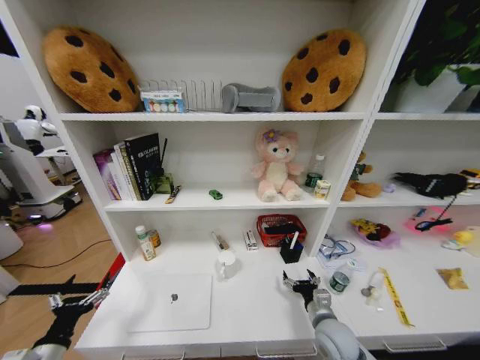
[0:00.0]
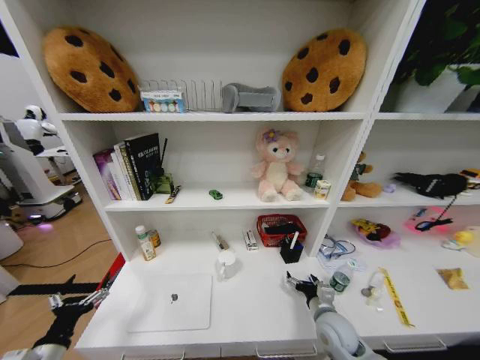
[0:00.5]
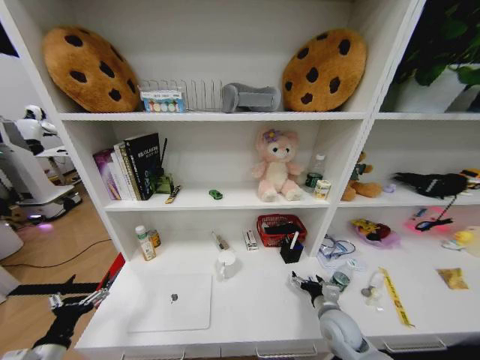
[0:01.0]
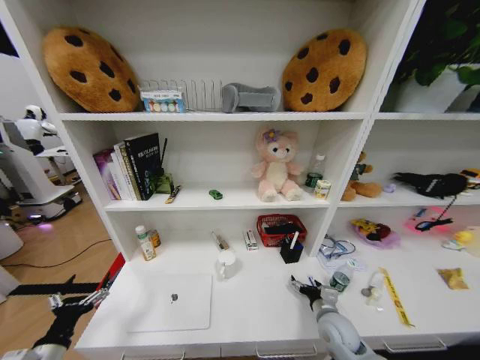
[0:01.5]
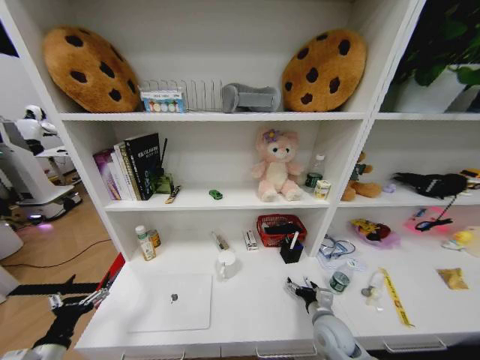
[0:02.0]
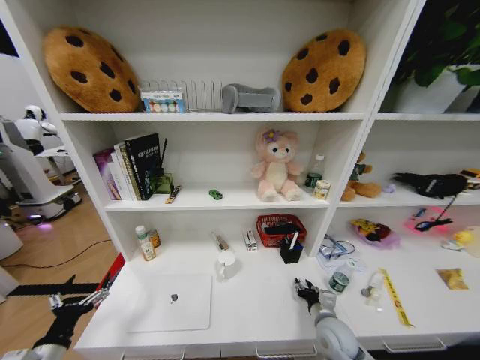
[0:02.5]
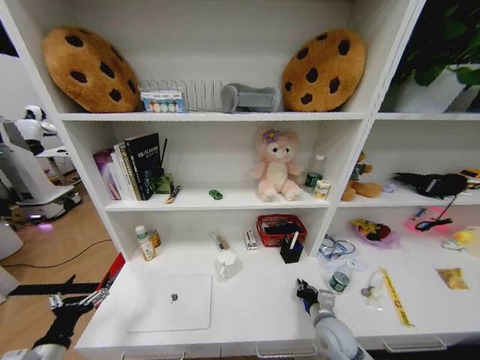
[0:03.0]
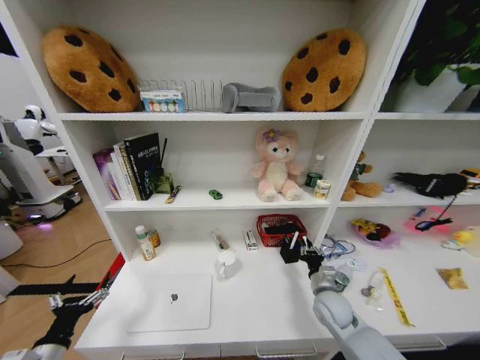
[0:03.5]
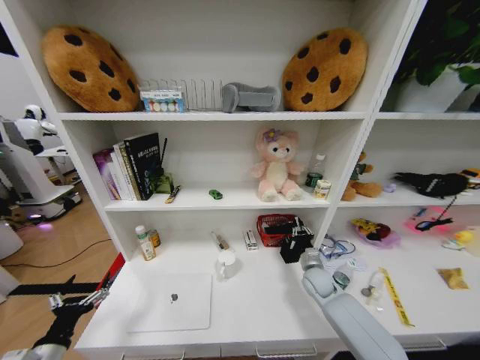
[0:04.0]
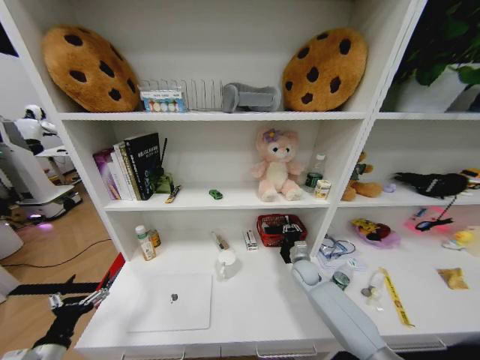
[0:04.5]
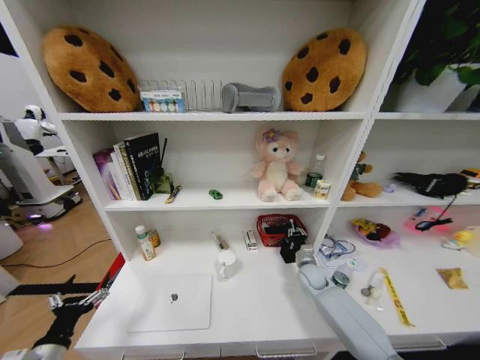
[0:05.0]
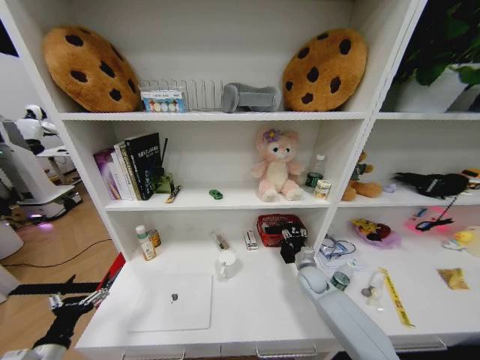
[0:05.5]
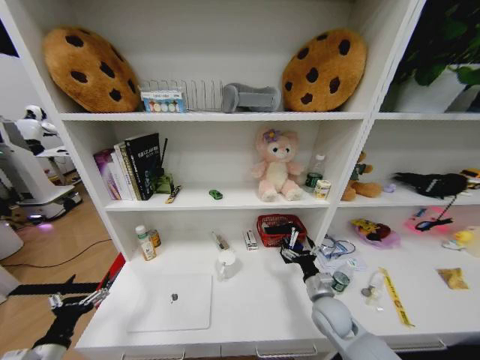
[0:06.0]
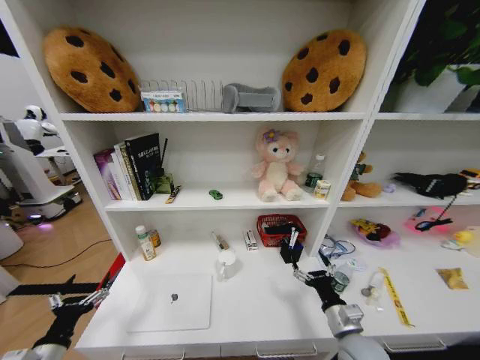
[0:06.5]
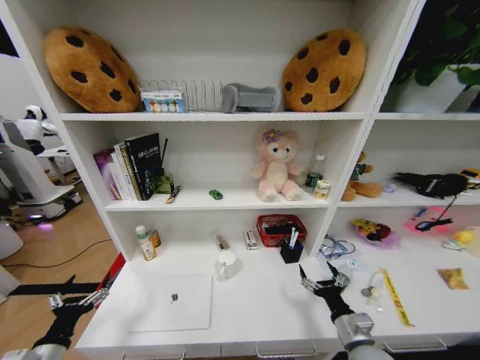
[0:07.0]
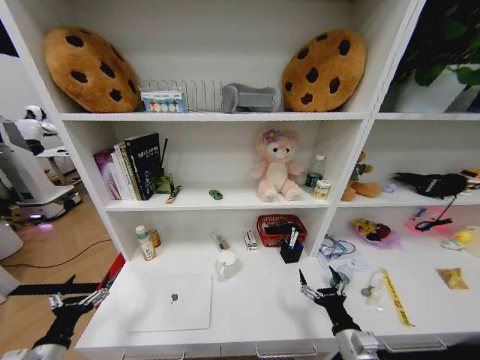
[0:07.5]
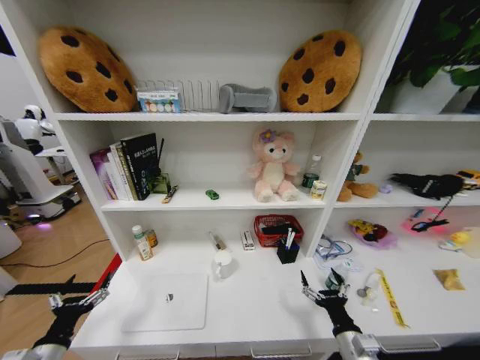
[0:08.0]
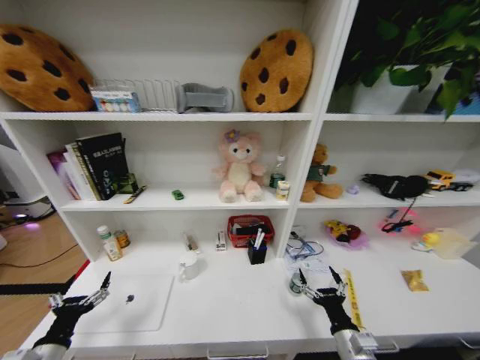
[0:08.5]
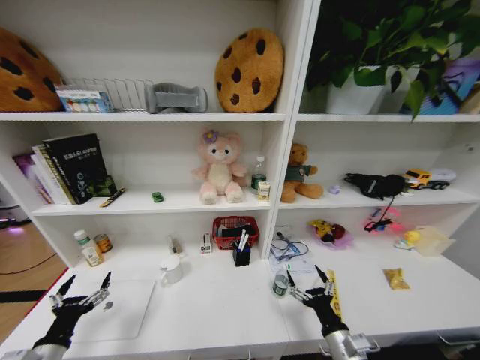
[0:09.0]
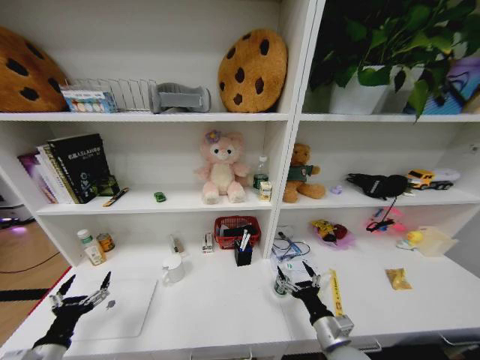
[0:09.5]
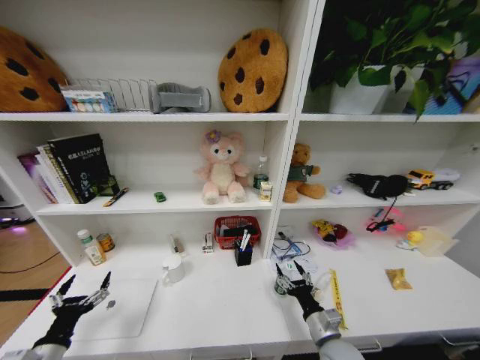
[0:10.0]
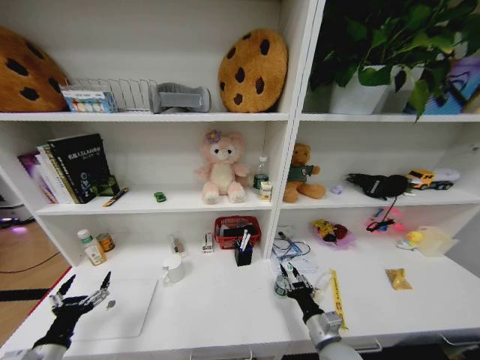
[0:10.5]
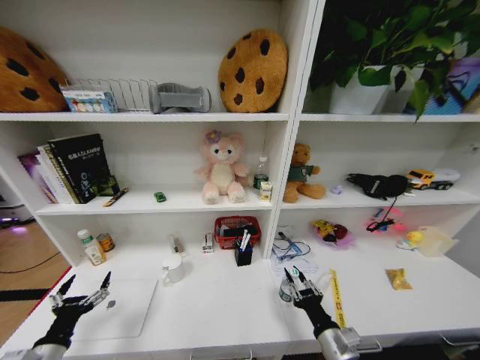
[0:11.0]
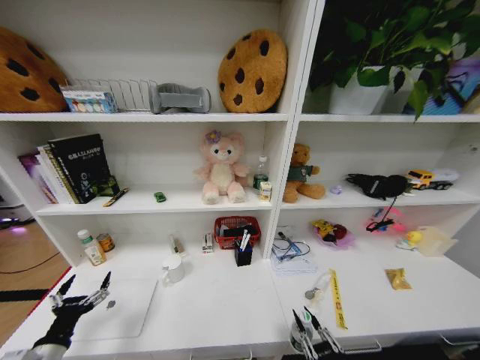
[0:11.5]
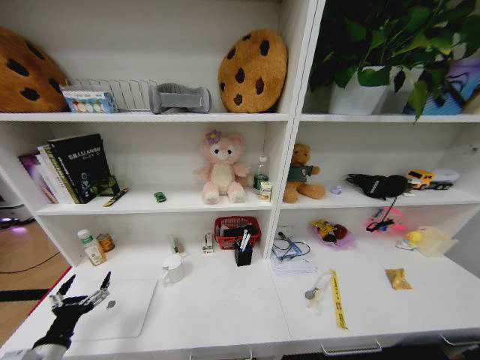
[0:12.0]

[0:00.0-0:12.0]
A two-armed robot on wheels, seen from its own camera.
Task of the whole recording: Organize the objects on the table.
0:00.0 to 0:02.0: There are only small adjustments of the grippers.
0:02.0 to 0:04.0: The right gripper heads forward, covering some 15 cm, and closes.
0:04.0 to 0:06.0: The right gripper travels backward by some 10 cm, and opens up.
0:06.0 to 0:08.0: The right gripper travels backward by roughly 15 cm.
0:08.0 to 0:10.0: The right gripper ends up roughly 5 cm from where it was.
0:10.0 to 0:12.0: The right gripper shifts roughly 25 cm backward, and closes up.

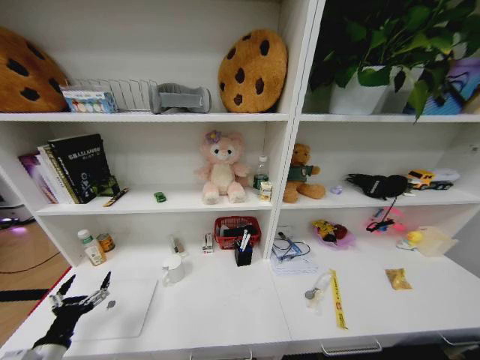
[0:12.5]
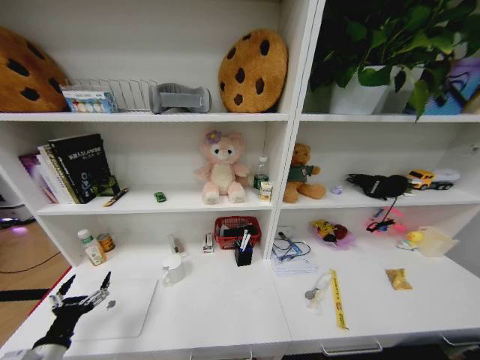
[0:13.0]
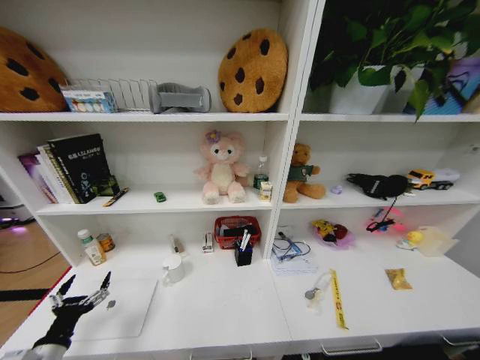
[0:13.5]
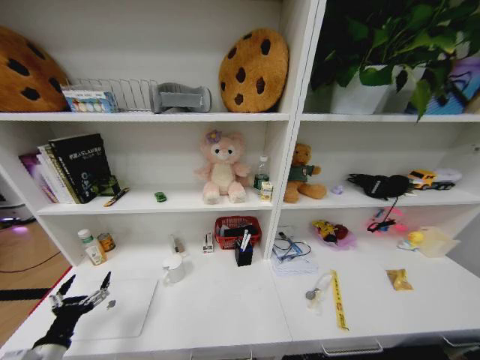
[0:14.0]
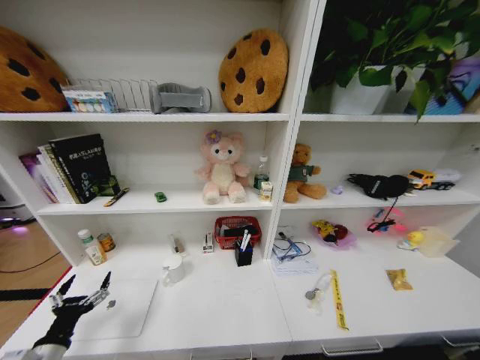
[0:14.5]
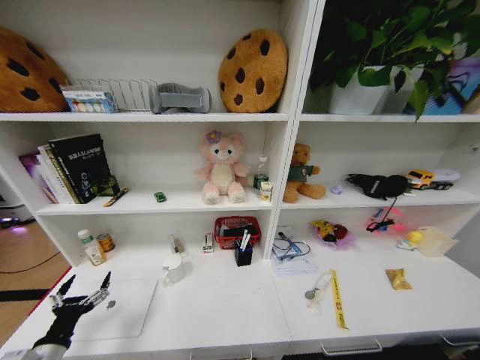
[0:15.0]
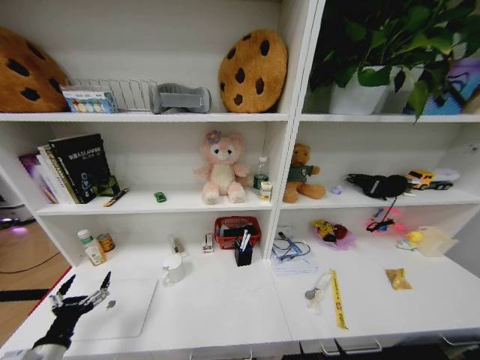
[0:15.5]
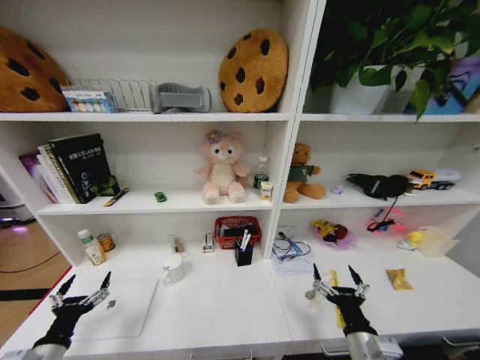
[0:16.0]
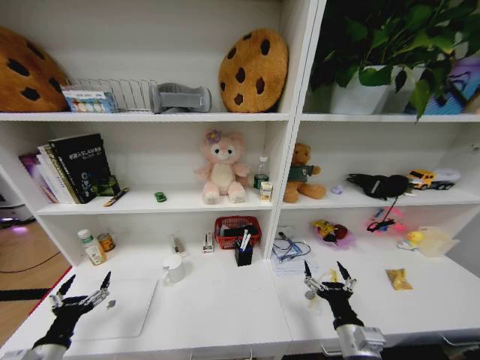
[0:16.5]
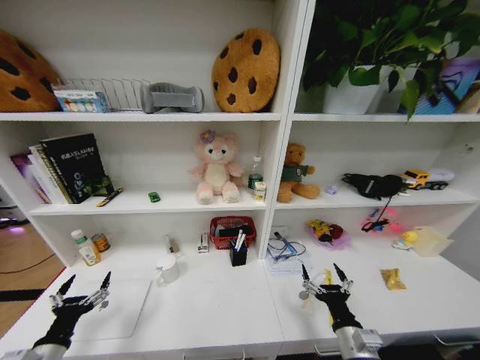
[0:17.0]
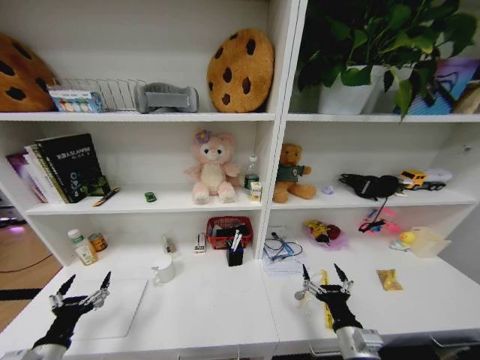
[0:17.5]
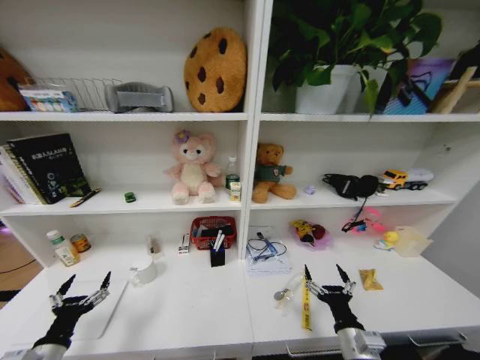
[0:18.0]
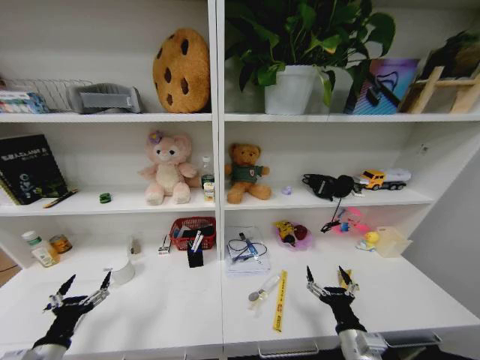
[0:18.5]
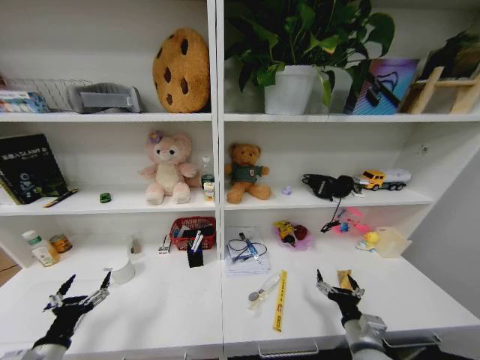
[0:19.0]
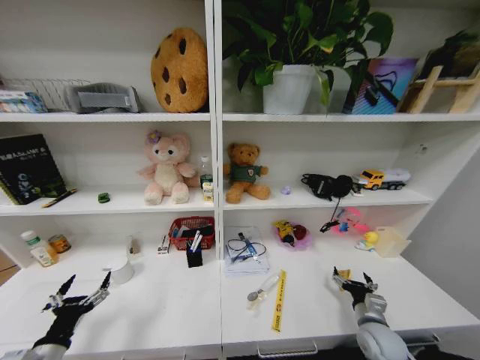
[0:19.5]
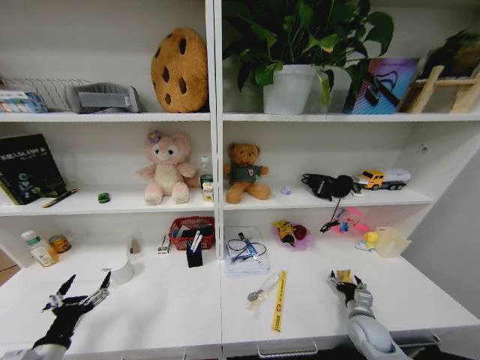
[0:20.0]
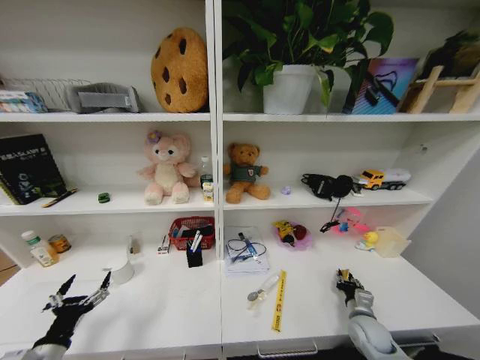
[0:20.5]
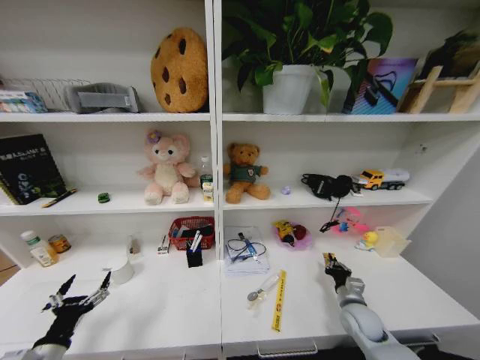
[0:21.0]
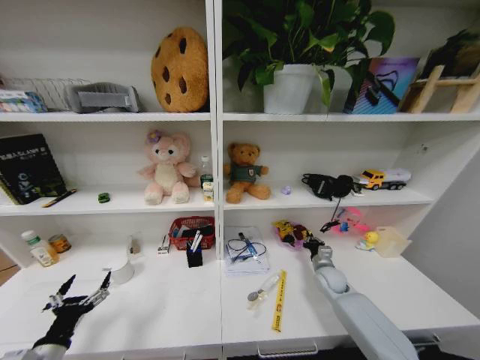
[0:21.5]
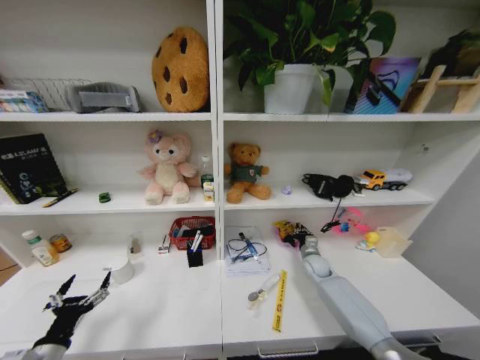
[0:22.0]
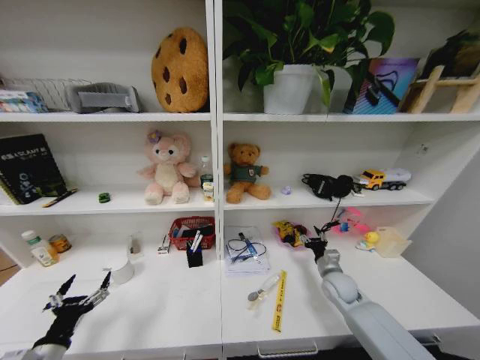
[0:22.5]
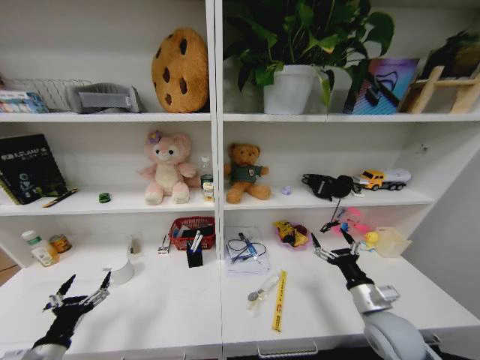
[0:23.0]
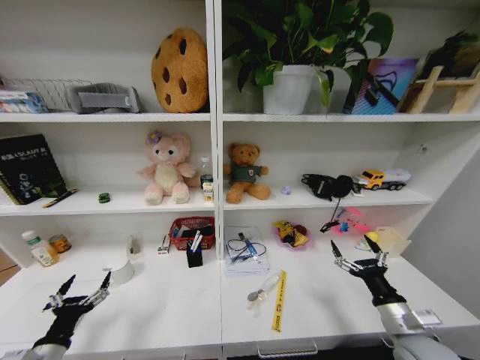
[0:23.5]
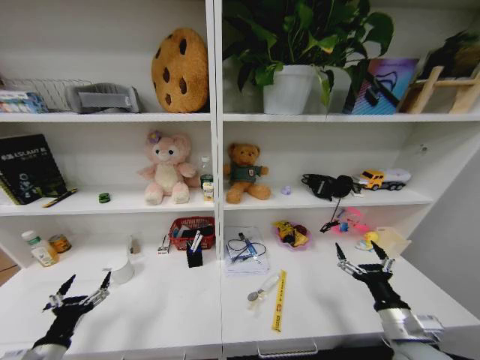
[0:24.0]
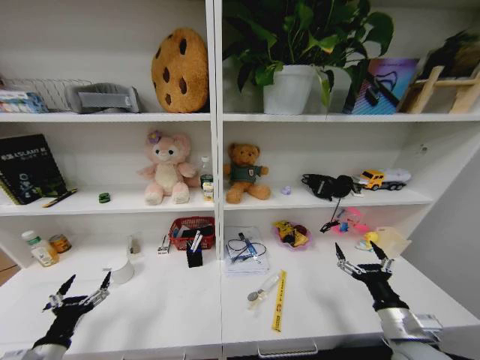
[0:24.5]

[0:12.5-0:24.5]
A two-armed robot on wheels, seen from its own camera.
Task of the whole recording: Organize the objects on the table.
0:12.5 to 0:14.5: The right gripper goes approximately 20 cm downward and forward, and opens its fingers.
0:14.5 to 0:16.5: The right gripper shifts some 35 cm upward and forward.
0:18.5 to 0:20.5: The right gripper travels forward, to the right and downward by roughly 20 cm, and closes up.
0:20.5 to 0:22.5: The right gripper travels forward, upward and to the left by some 15 cm.
0:22.5 to 0:24.5: The right gripper goes roughly 20 cm backward, and opens its fingers.
